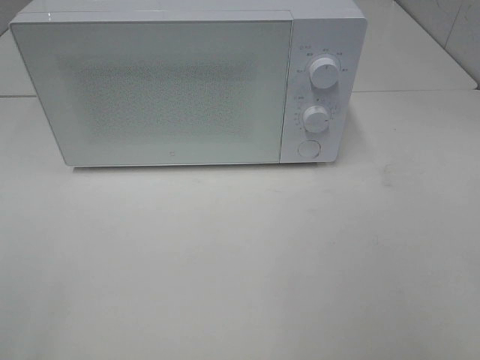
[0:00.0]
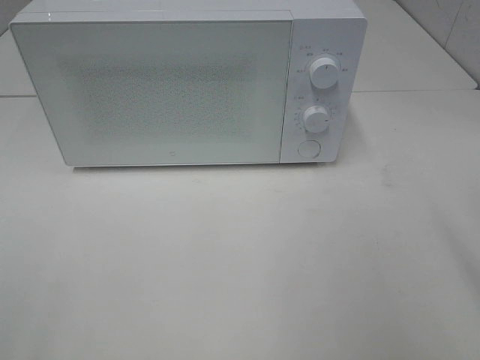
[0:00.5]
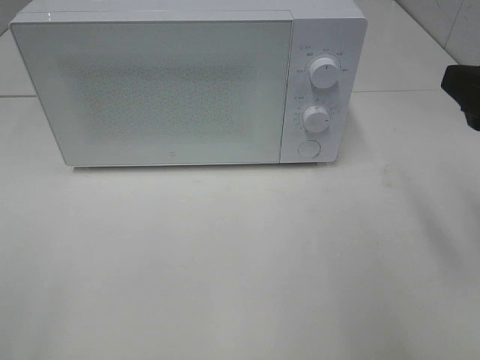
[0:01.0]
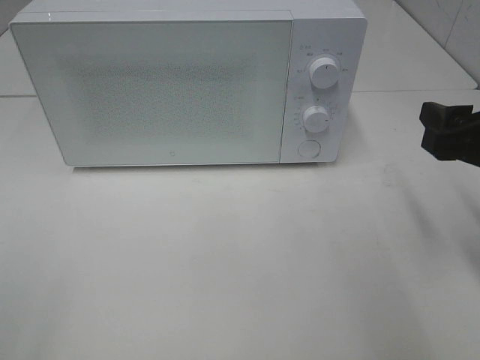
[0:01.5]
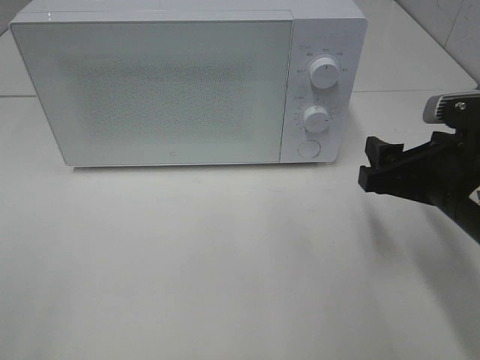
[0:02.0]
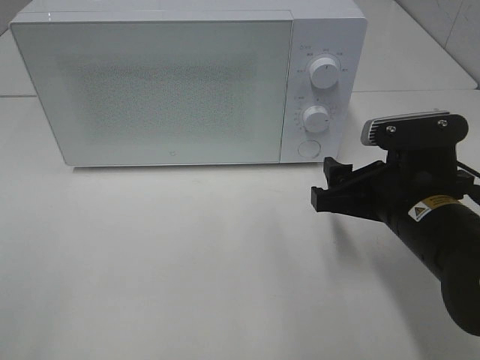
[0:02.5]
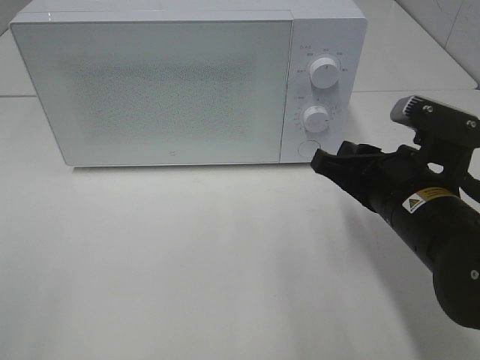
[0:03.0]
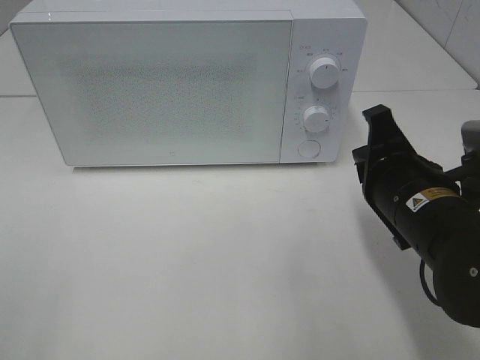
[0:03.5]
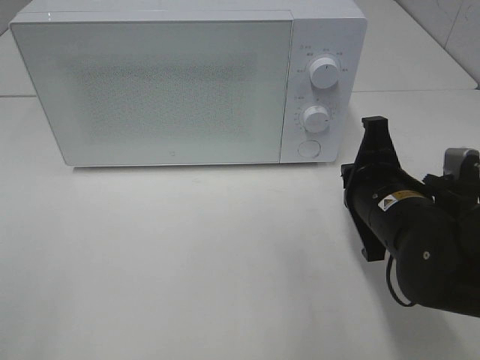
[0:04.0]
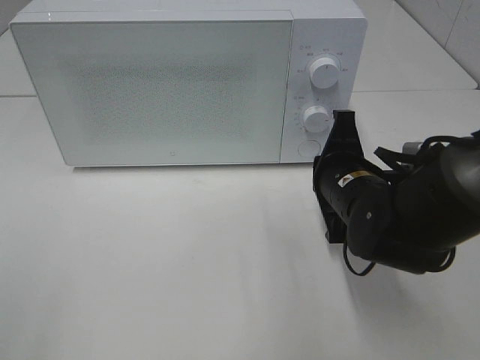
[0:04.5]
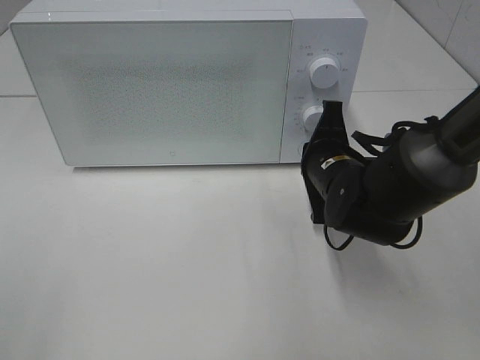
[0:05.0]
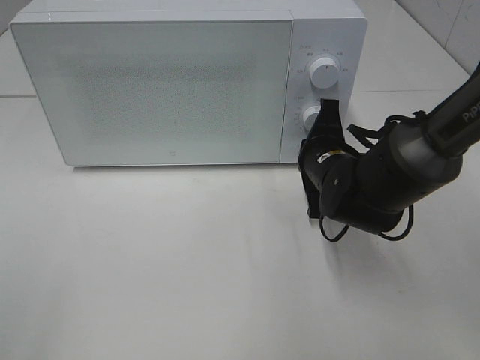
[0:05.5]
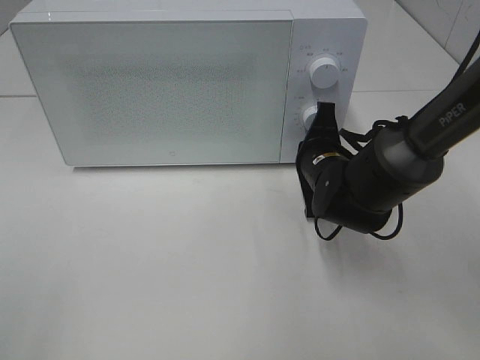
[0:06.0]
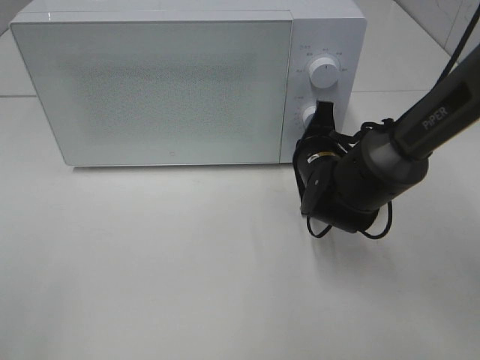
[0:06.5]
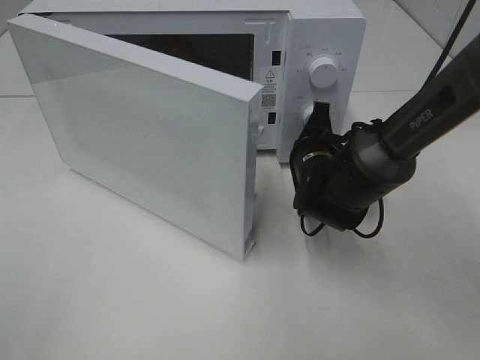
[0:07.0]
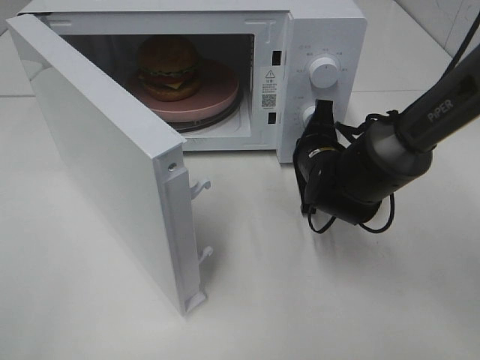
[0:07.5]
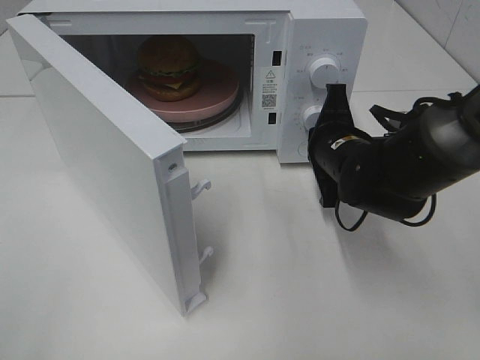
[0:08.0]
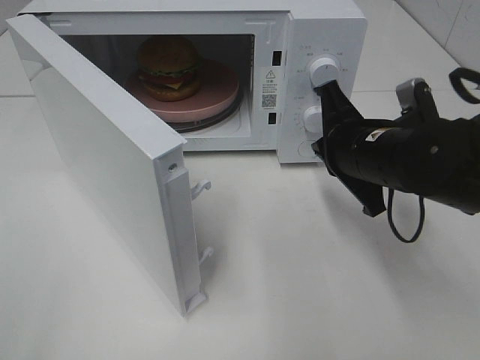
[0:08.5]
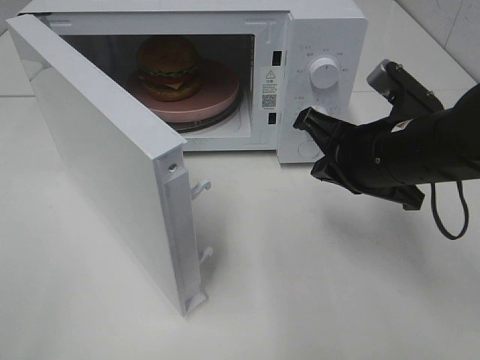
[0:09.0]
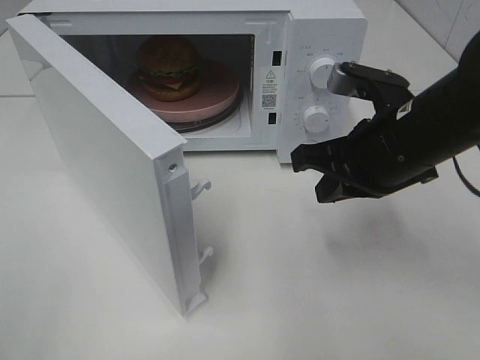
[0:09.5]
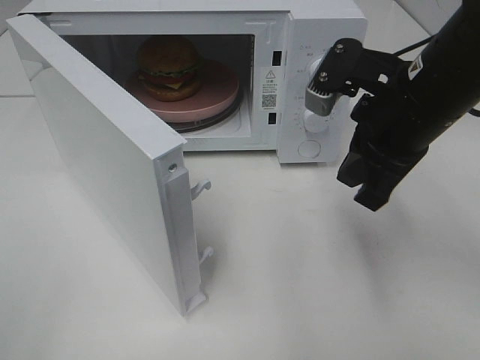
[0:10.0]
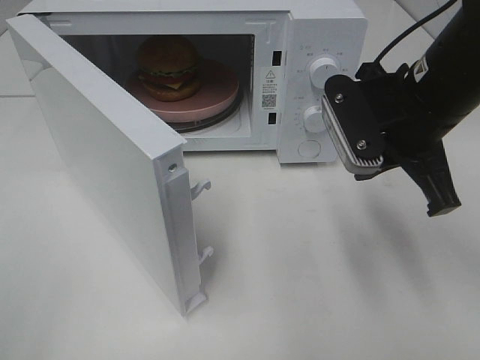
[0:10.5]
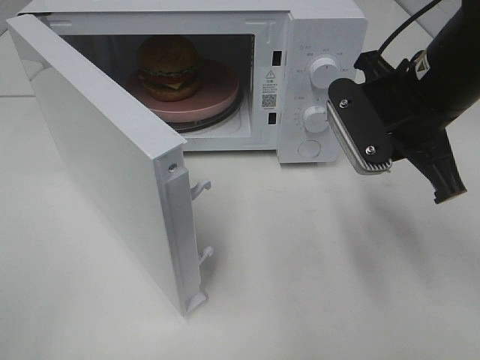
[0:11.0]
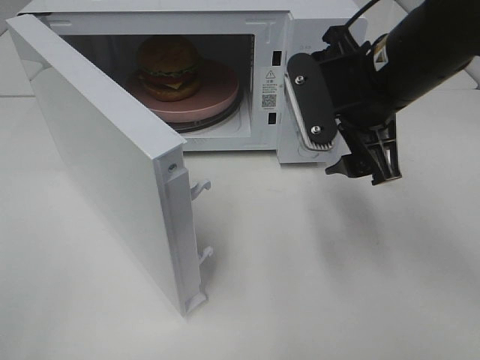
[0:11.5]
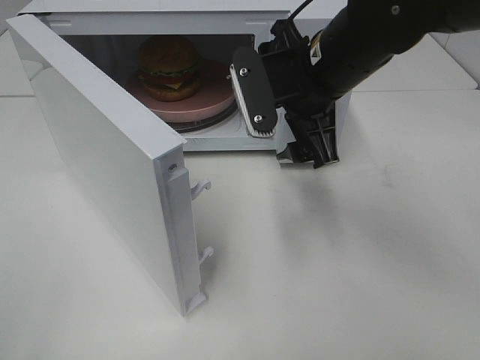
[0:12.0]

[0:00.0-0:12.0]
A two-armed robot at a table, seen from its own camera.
Task of the whole recording: Heat the burger.
Step, 0:00.0 to 0:07.5: Right hand: press the switch.
0:00.0 to 0:02.0: The right gripper goes about 25 cm forward and downward.
0:02.0 to 0:04.0: The right gripper shifts roughly 5 cm to the left, and closes its fingers.
0:04.0 to 0:06.0: The right gripper travels forward by about 10 cm.
0:08.0 to 0:10.0: The right gripper moves upward and backward, some 15 cm.
0:10.0 to 0:12.0: The right gripper heads to the left and forward, covering approximately 10 cm, and opens up.

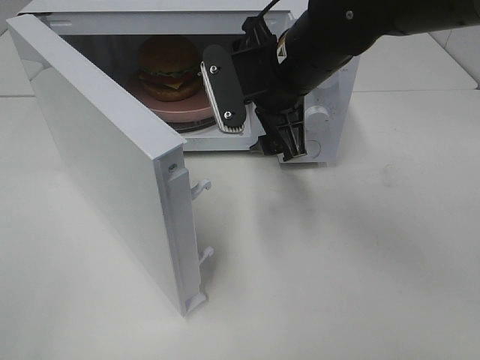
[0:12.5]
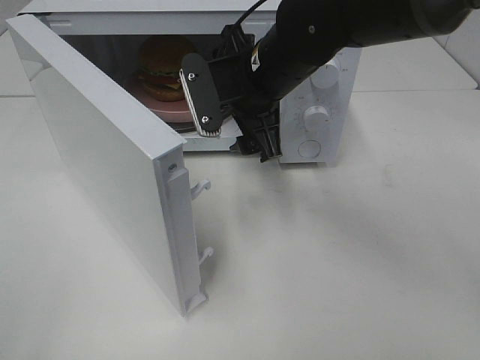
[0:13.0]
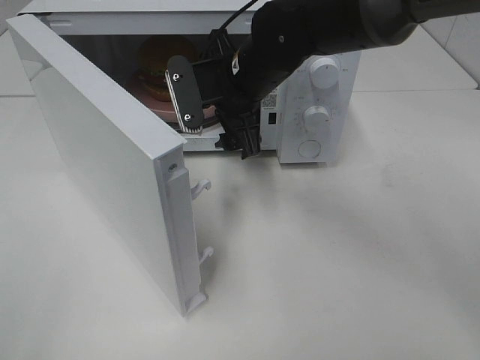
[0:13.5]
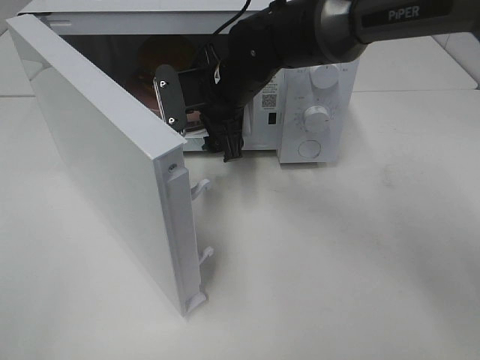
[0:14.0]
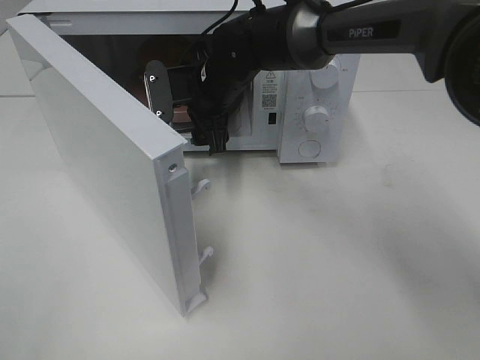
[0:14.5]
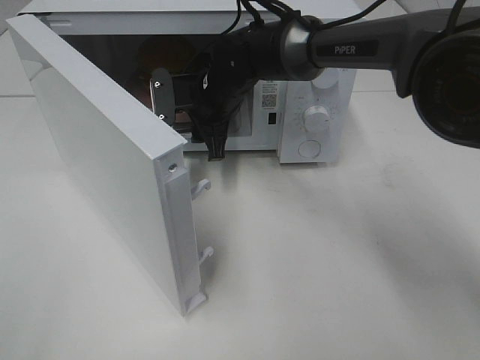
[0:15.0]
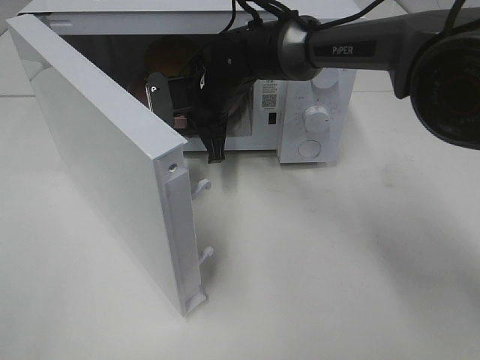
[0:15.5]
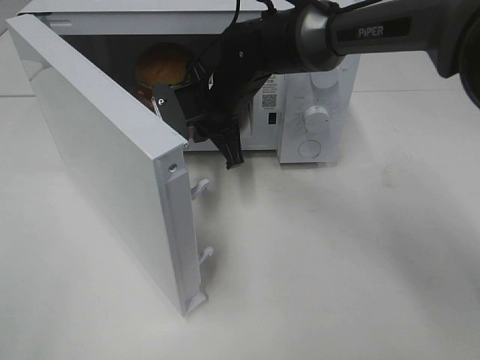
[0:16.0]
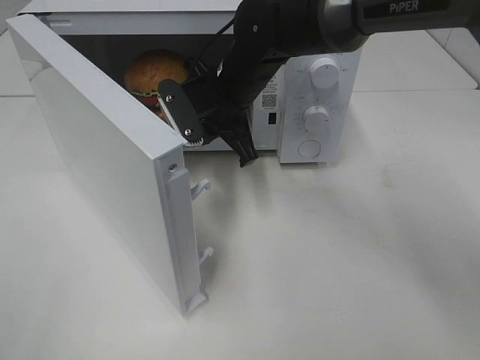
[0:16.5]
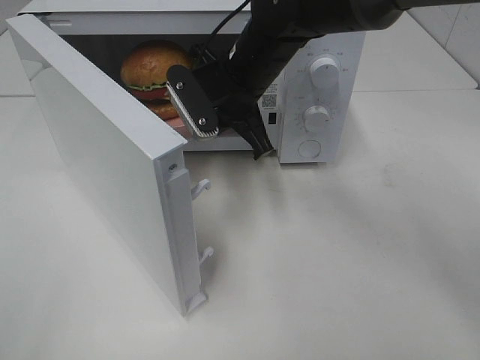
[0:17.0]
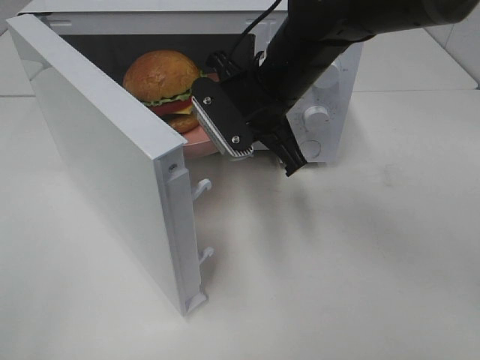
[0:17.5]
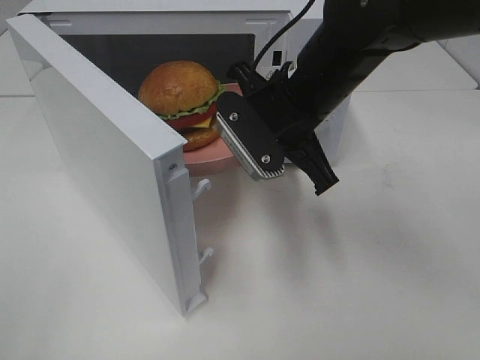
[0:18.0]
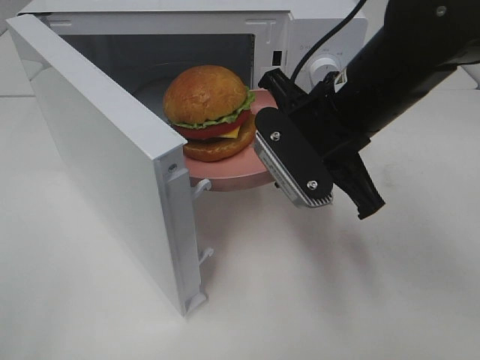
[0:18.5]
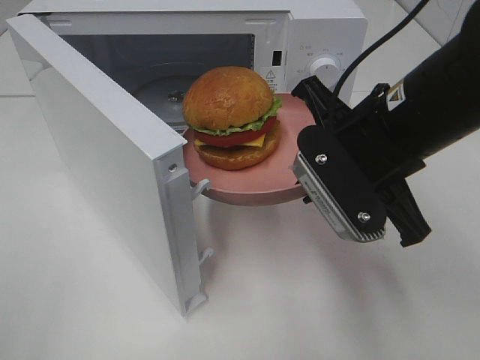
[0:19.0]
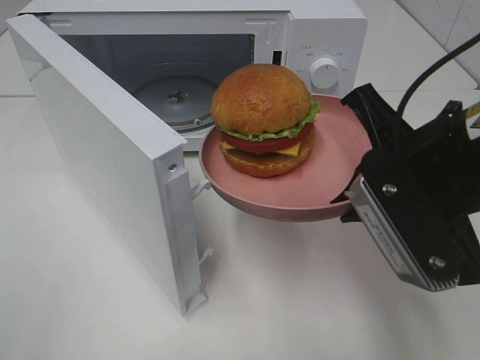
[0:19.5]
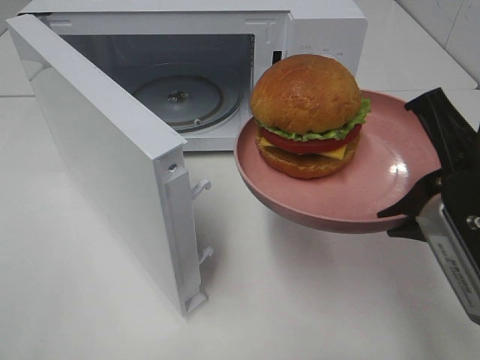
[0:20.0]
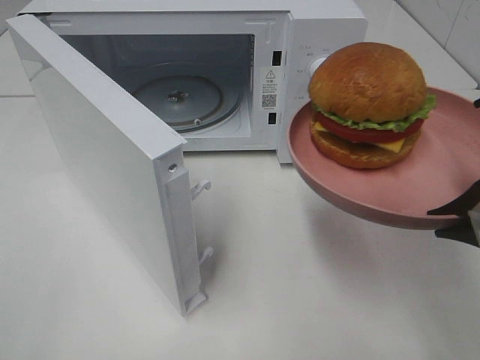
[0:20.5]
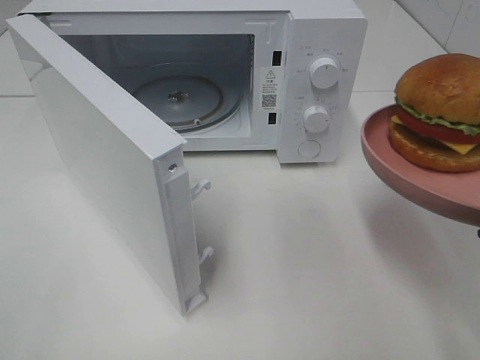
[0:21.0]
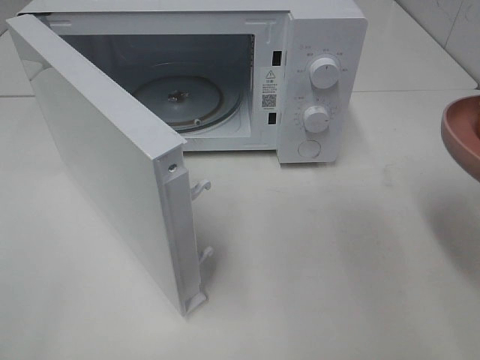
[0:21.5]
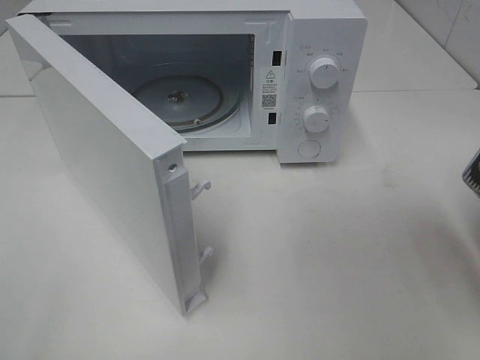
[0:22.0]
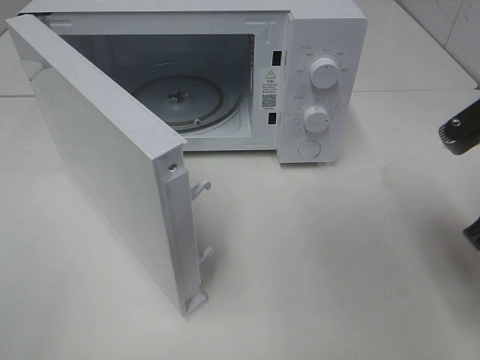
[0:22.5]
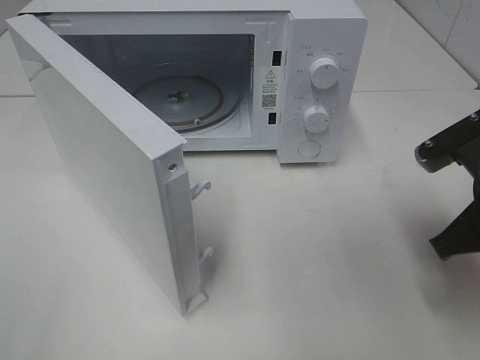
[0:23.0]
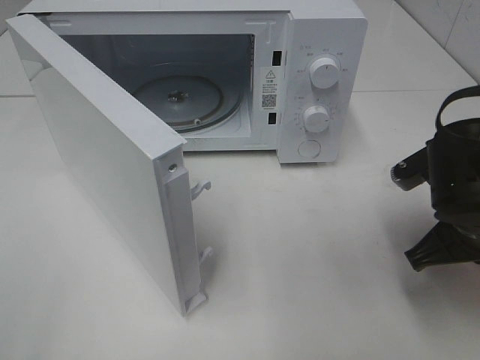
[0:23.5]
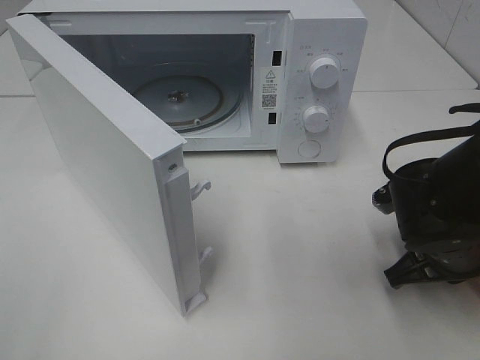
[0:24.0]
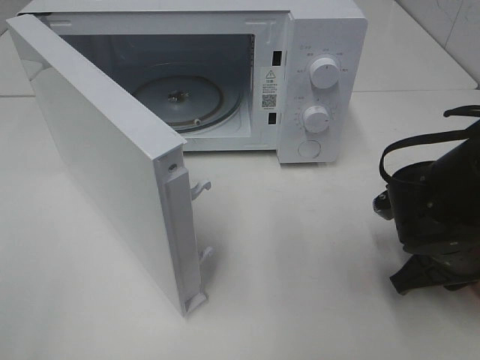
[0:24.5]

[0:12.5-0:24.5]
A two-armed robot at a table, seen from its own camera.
Task of the whole recording: Heat the burger.
Step, 0:12.5 to 0:15.0: Right hand: grab the plate with the hamburger.
0:12.5 to 0:14.5: The right gripper moves forward, to the left and downward, about 15 cm.
0:14.5 to 0:16.5: The right gripper closes.
0:16.5 to 0:18.5: The right gripper moves backward and to the right, about 15 cm.
0:18.5 to 0:20.5: The right gripper heads backward and to the right, covering approximately 20 cm.
0:20.5 to 0:22.5: The right gripper shifts approximately 5 cm forward.
0:22.5 to 0:24.5: The right gripper travels downward by about 10 cm.

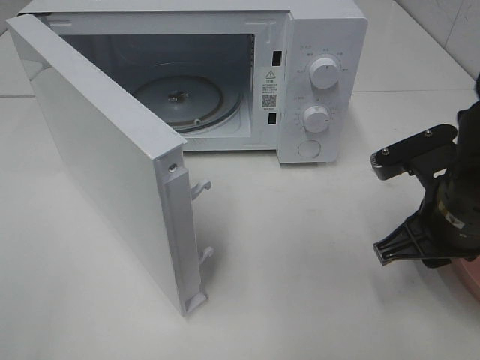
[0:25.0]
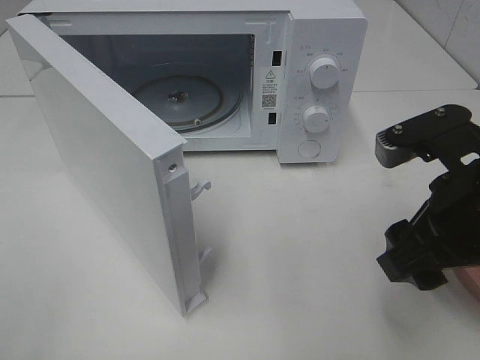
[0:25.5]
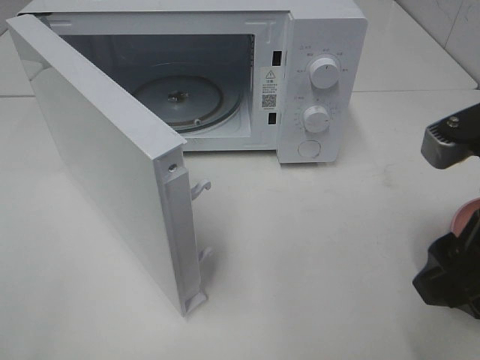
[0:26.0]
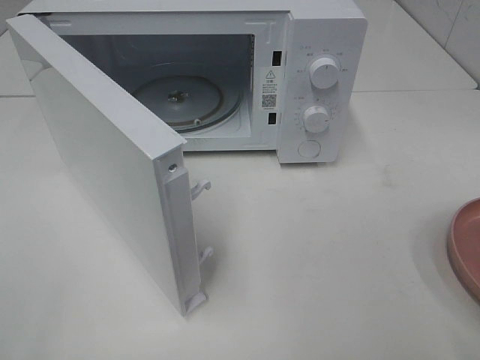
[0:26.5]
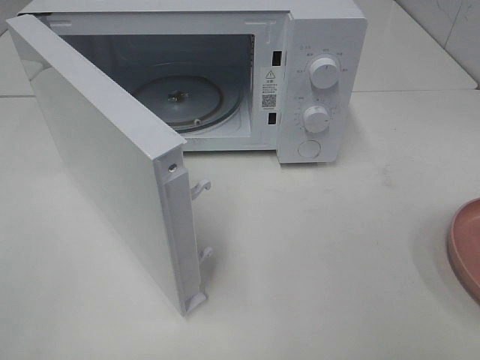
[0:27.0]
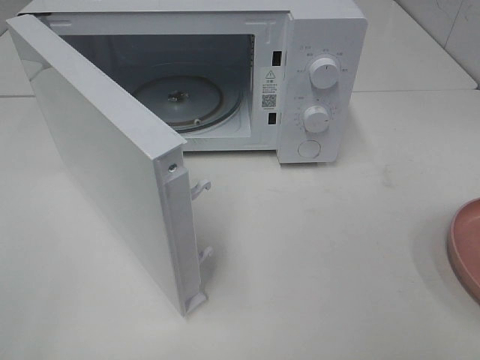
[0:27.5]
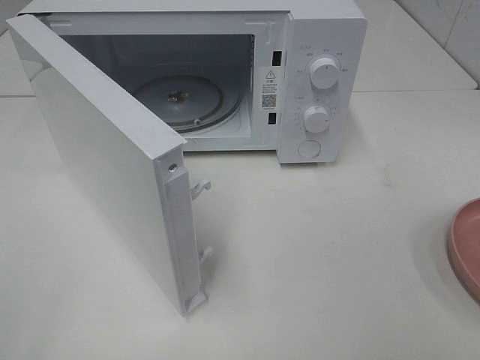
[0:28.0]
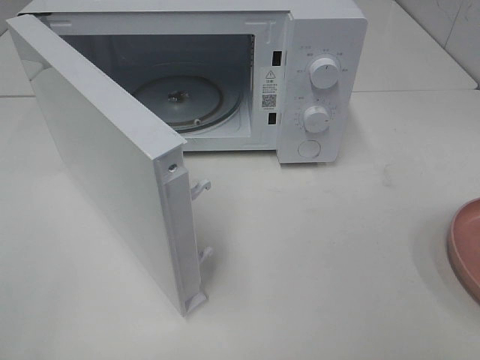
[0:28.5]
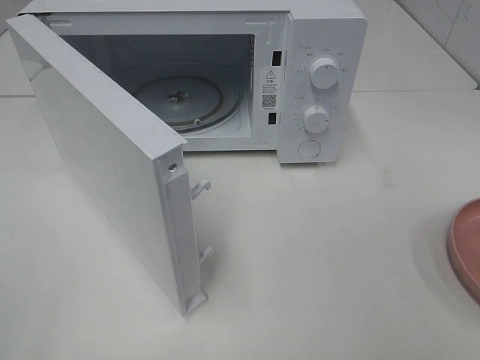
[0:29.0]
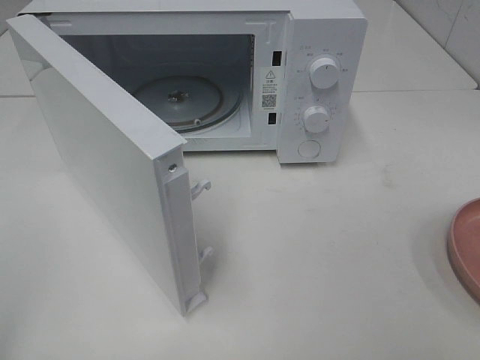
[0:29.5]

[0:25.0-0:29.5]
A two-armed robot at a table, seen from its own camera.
Task of the whole recording: Heat the burger.
0:25.0 to 0:27.0: The right gripper moves backward, upward and to the right, about 25 cm.
